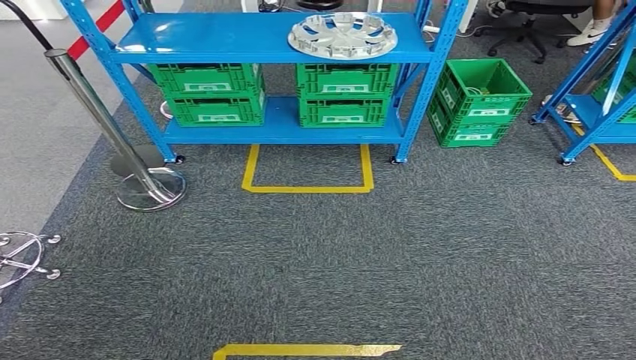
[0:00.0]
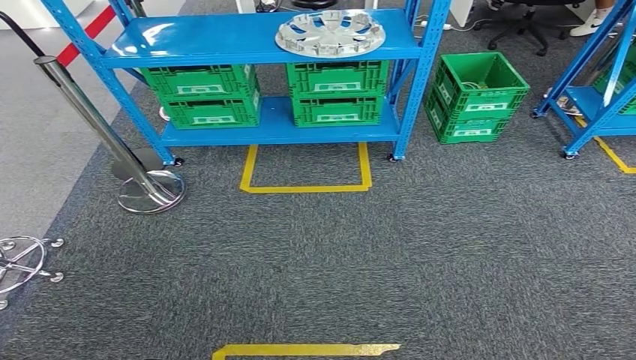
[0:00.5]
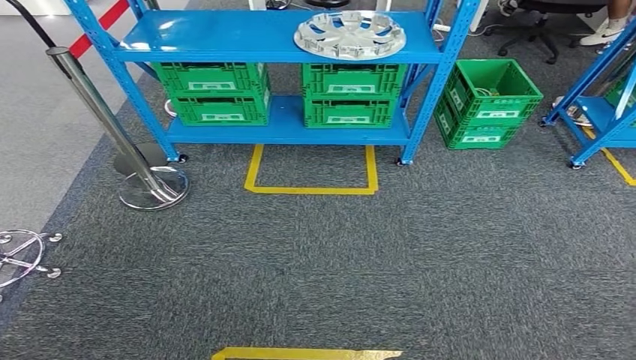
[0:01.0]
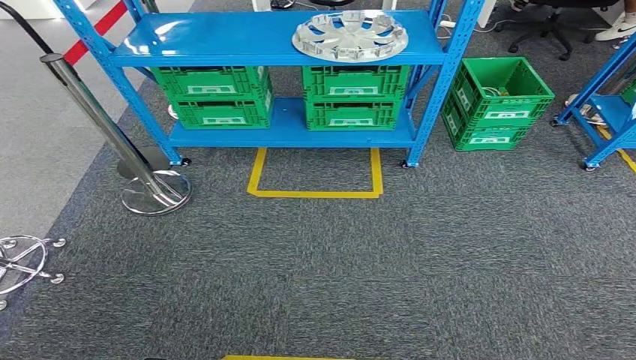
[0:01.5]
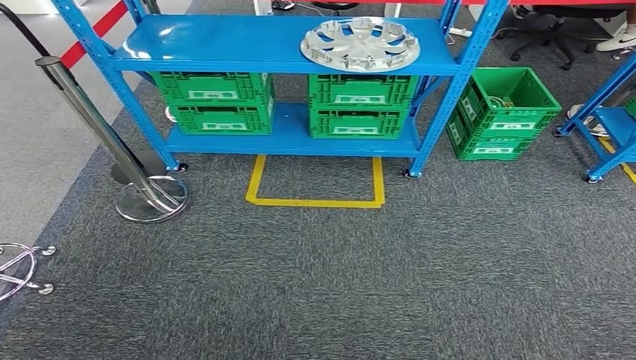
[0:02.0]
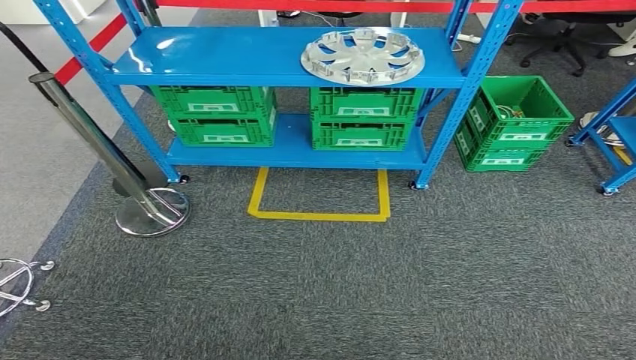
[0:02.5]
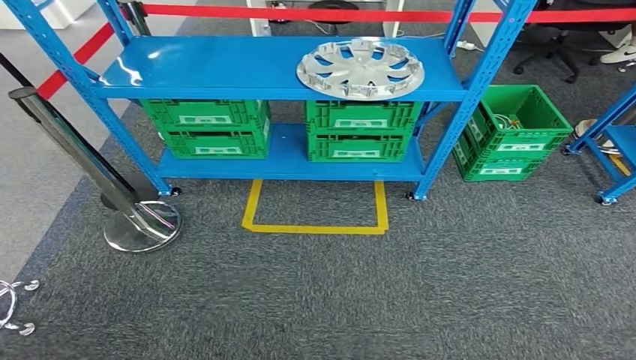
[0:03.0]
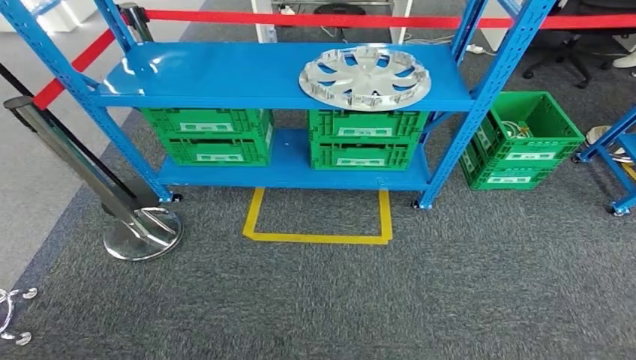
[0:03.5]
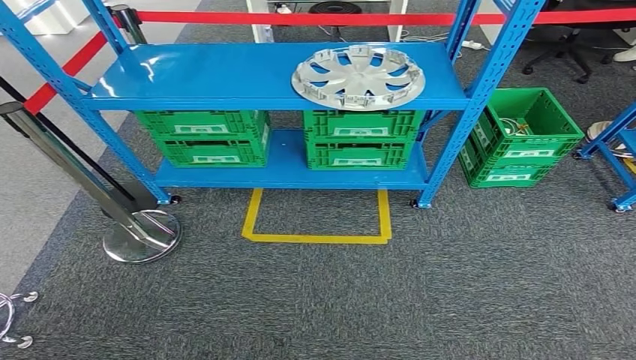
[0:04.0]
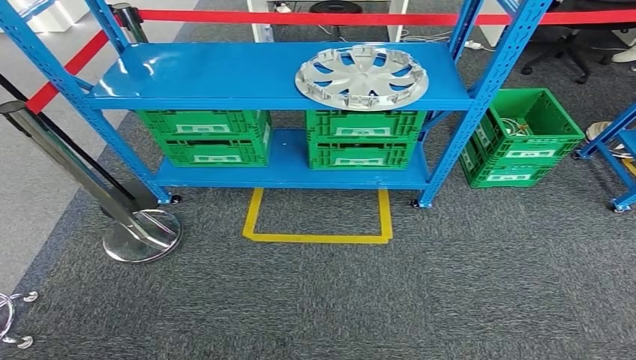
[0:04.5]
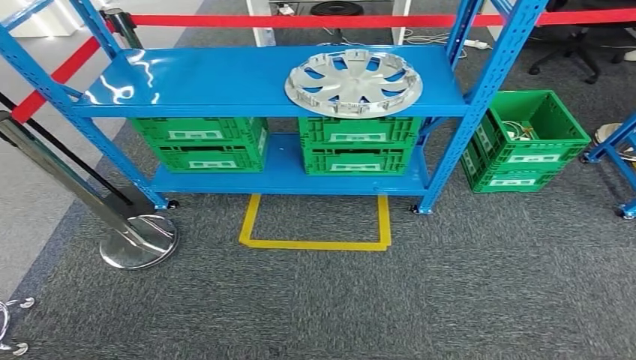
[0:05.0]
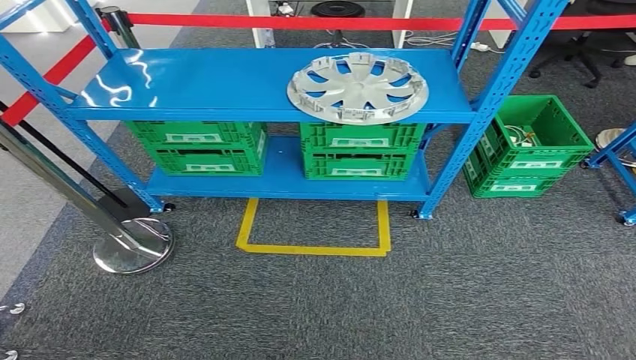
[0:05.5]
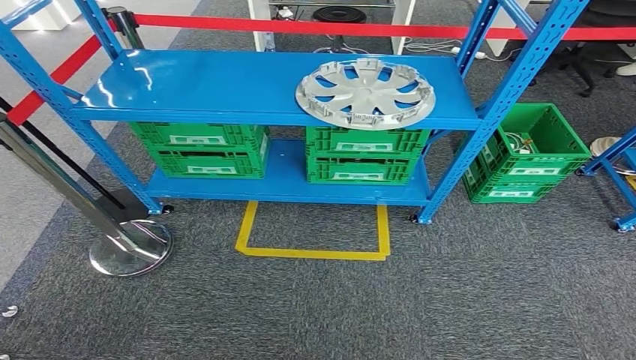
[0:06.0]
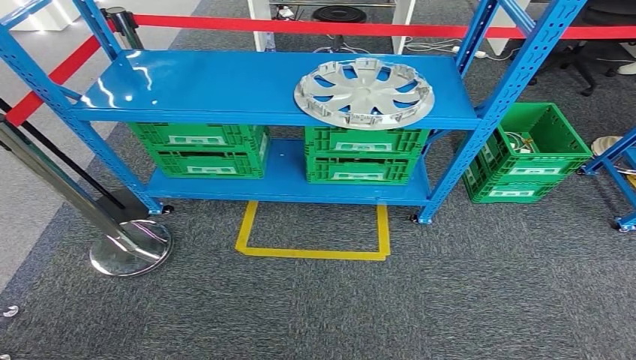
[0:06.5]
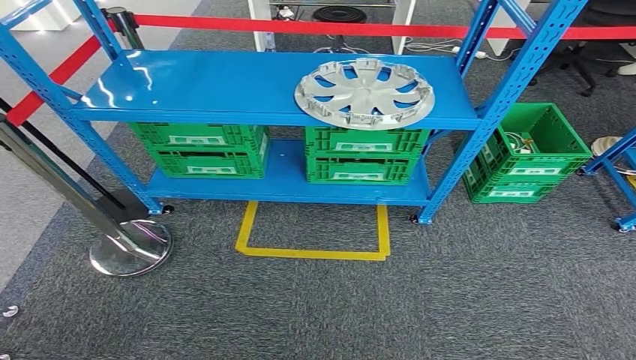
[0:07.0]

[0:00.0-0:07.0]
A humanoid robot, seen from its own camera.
Step, 0:00.0 to 0:07.0: Move to the initial position of the workbench.
